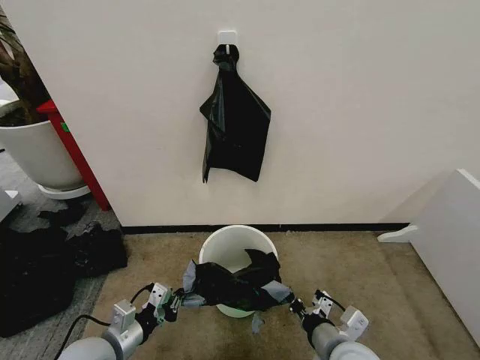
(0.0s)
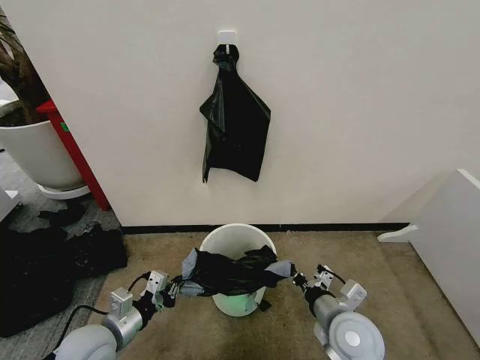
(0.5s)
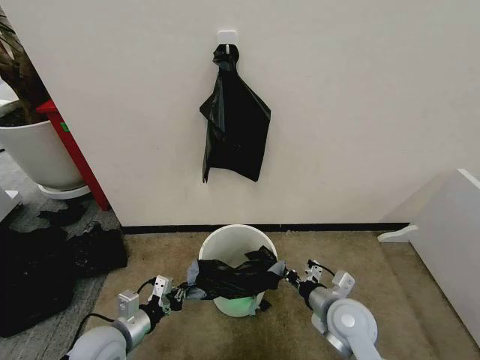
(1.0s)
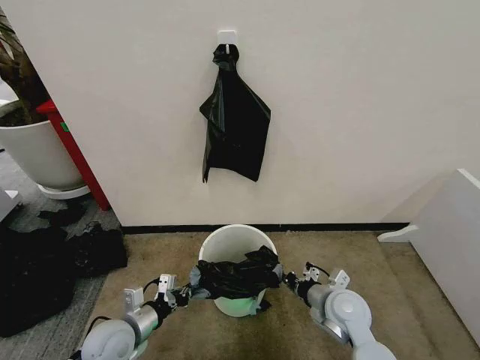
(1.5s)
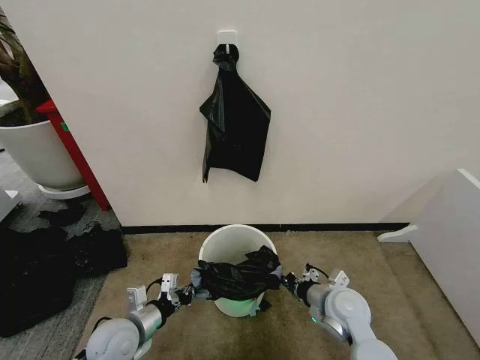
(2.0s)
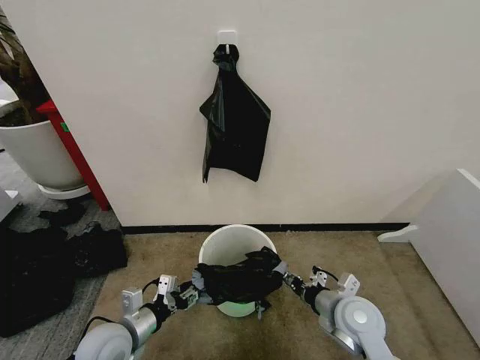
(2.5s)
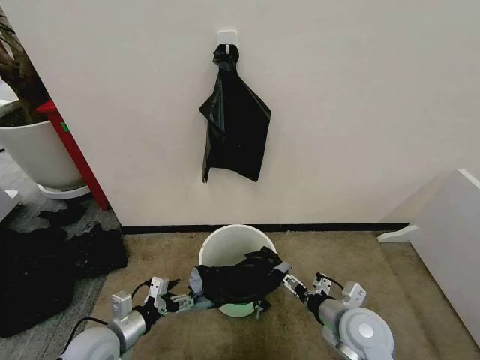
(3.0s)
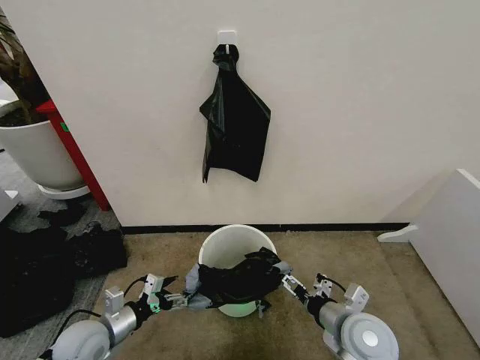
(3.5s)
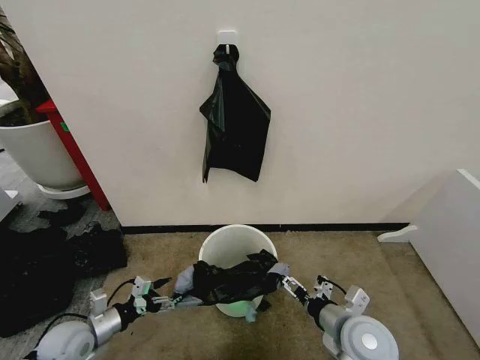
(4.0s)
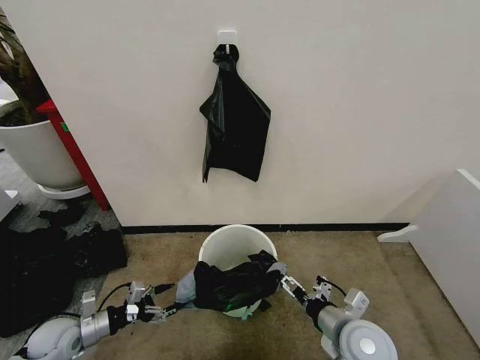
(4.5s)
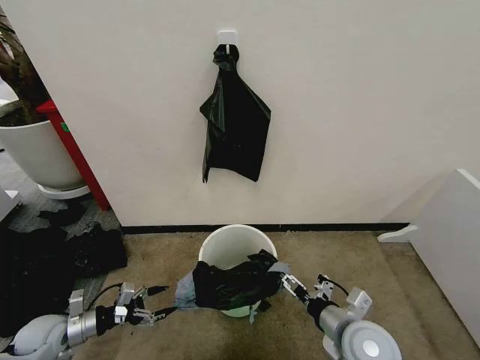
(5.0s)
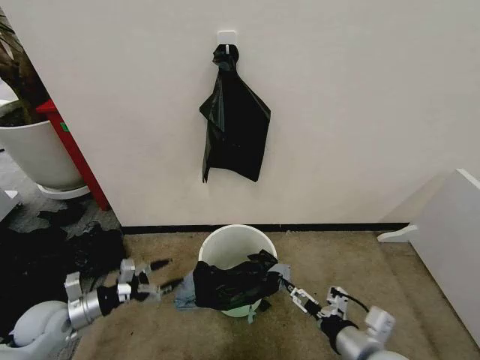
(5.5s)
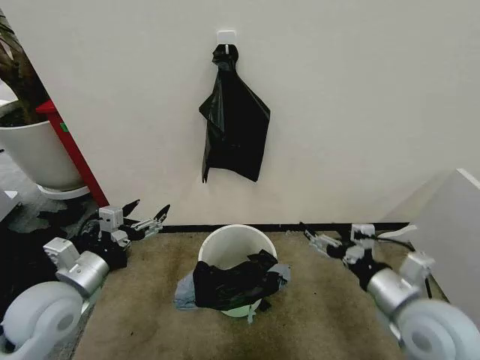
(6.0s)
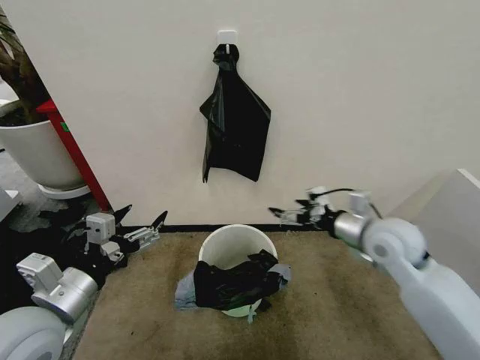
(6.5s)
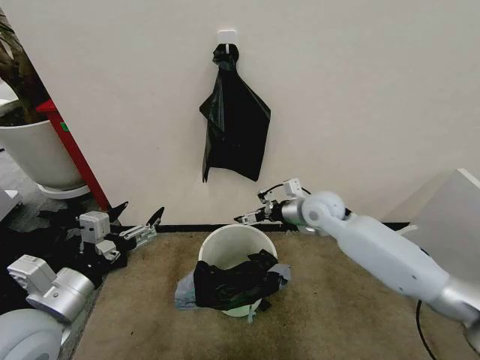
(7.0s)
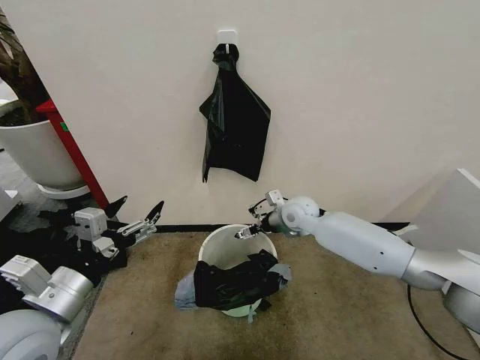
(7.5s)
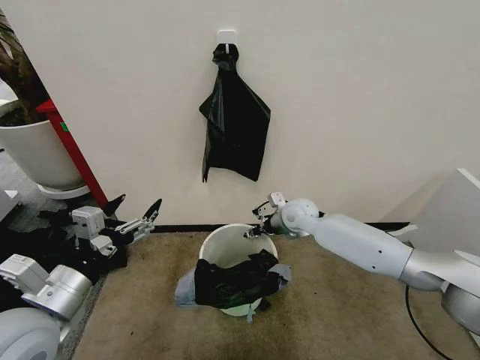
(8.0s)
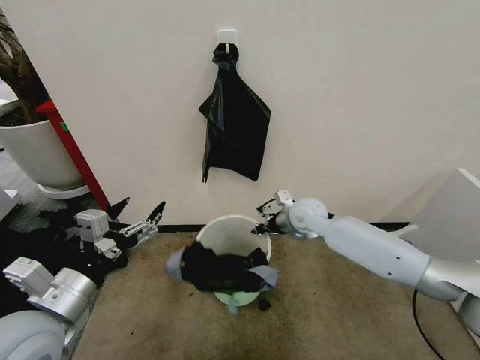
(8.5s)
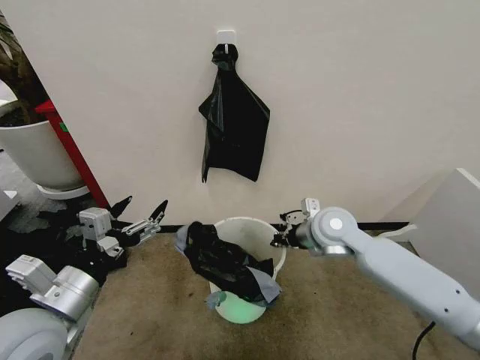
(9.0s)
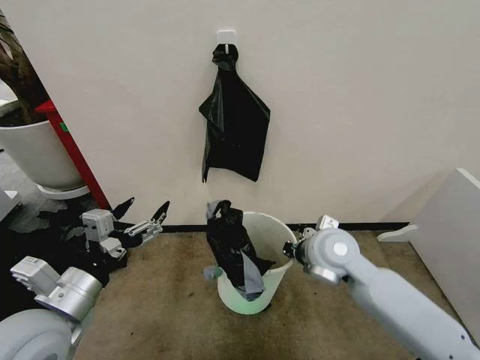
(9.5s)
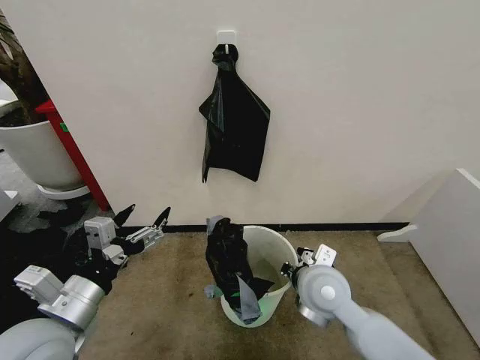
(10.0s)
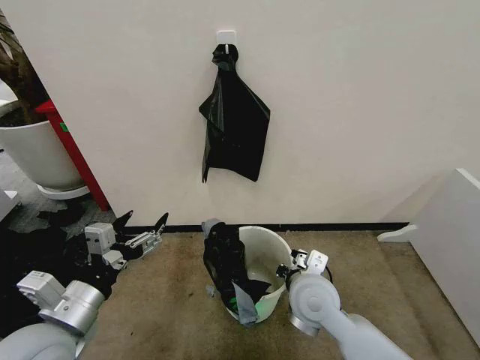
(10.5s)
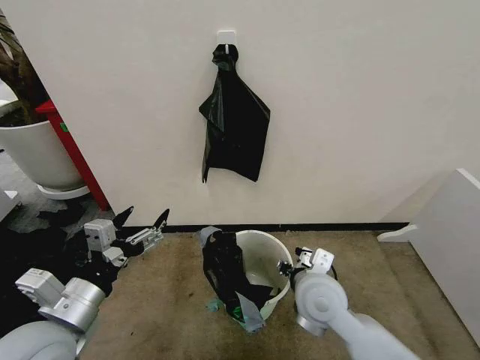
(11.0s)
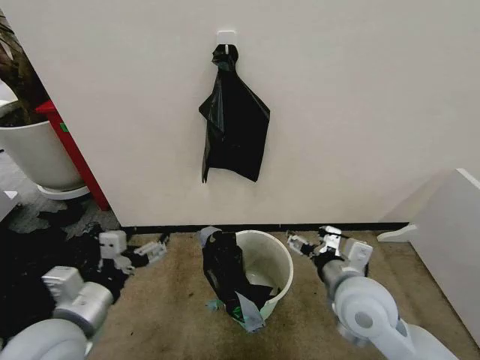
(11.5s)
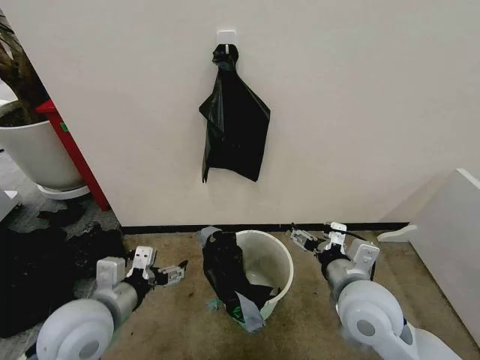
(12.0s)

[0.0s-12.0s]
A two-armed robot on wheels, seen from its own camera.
Task of the whole recording: Place the garbage bag over the trash bin.
0.0s to 2.0s: The left gripper moves approximately 5 cm; the right gripper goes about 10 cm forward.
2.0s to 4.0s: The left gripper moves to the left, roughly 10 cm, and opens its fingers. Meanwhile the right gripper heads backward, covering some 5 cm, and opens.
4.0s to 6.0s: The right gripper is displaced upward and to the right by approximately 10 cm; the left gripper shifts approximately 20 cm upward.
6.0s to 8.0s: The right gripper moves forward and to the left, approximately 30 cm, and closes up, while the left gripper moves about 5 cm.
8.0s to 10.0s: The right gripper is displaced backward by about 20 cm, and closes its fingers.
10.0s to 12.0s: The right gripper moves to the right, some 5 cm, and opens its fingers; the left gripper moves some 5 cm.

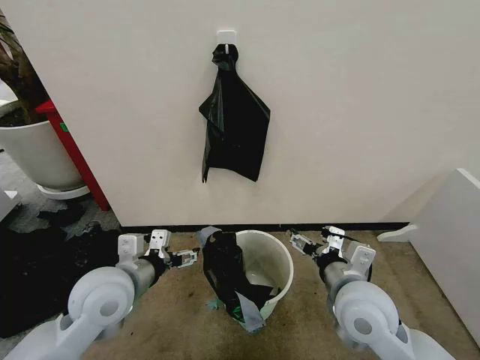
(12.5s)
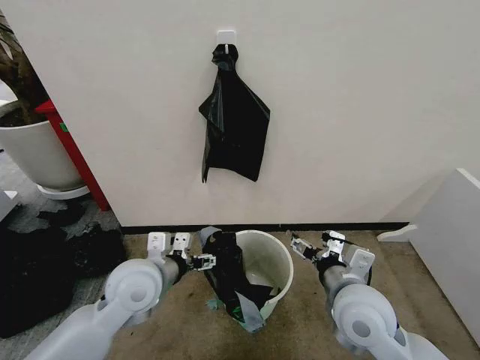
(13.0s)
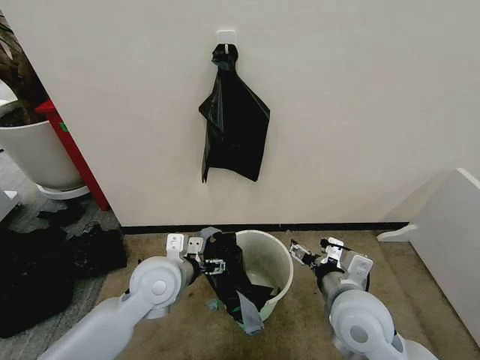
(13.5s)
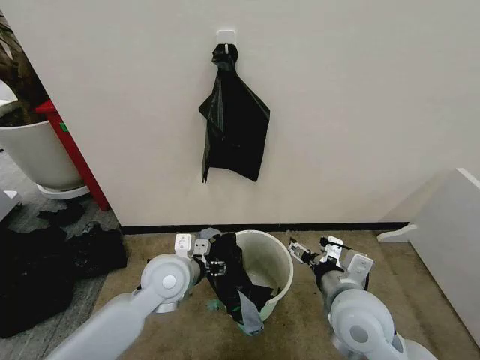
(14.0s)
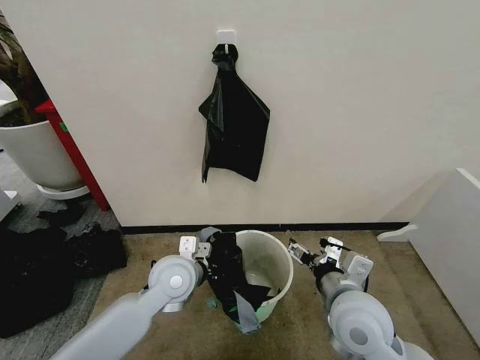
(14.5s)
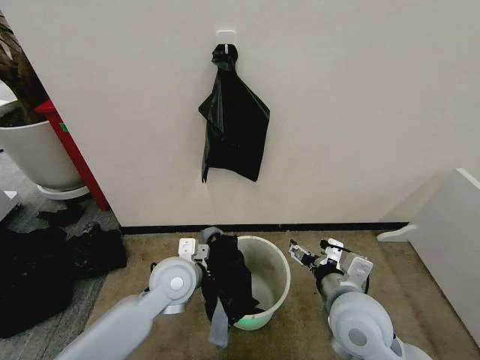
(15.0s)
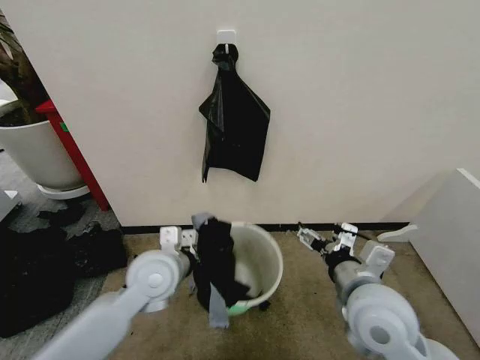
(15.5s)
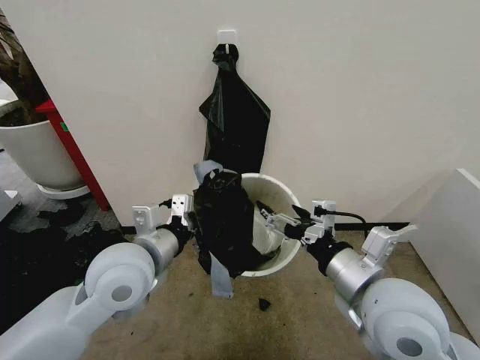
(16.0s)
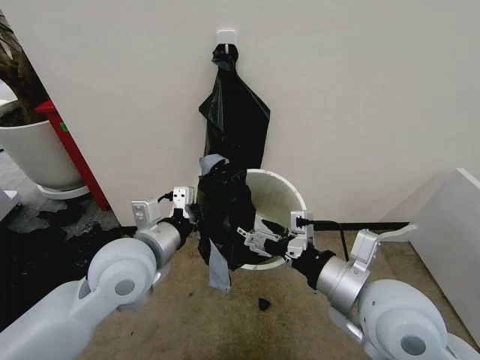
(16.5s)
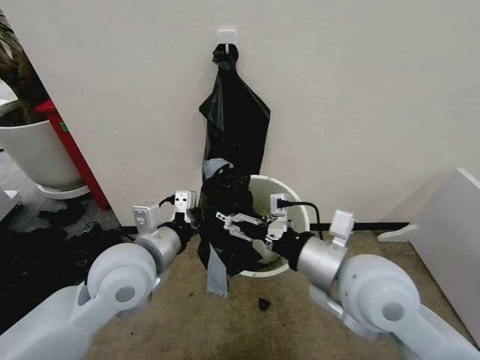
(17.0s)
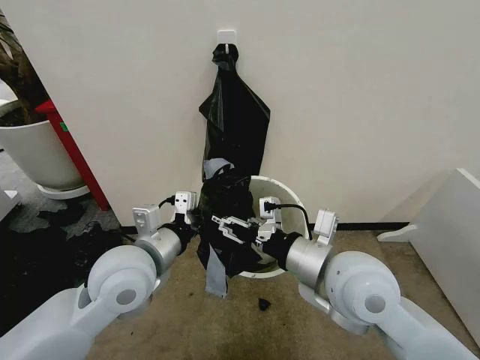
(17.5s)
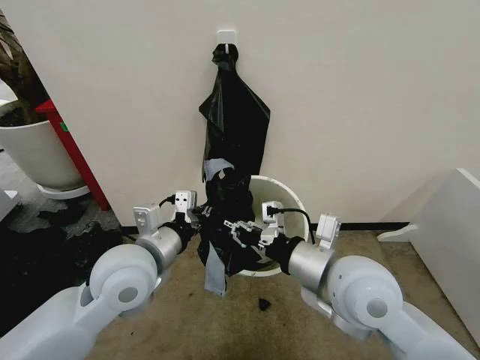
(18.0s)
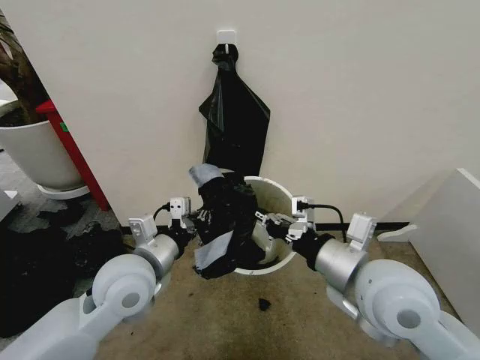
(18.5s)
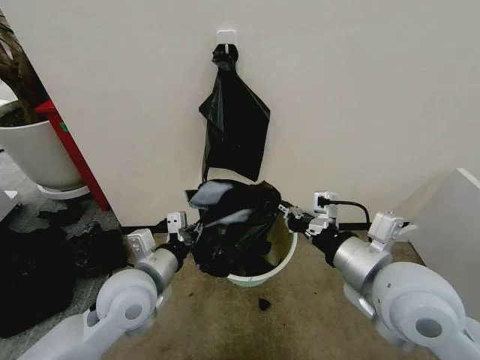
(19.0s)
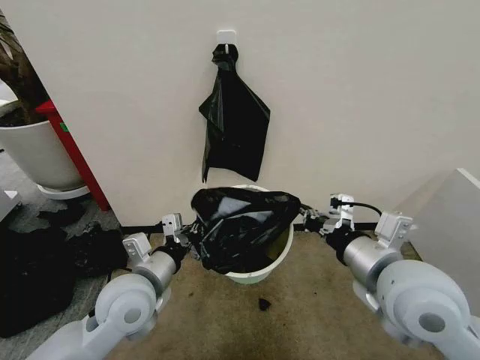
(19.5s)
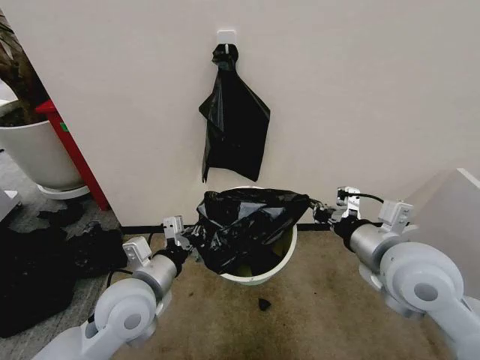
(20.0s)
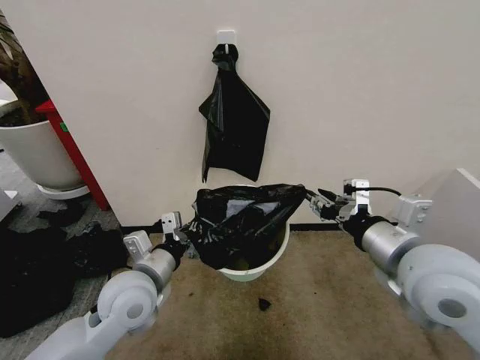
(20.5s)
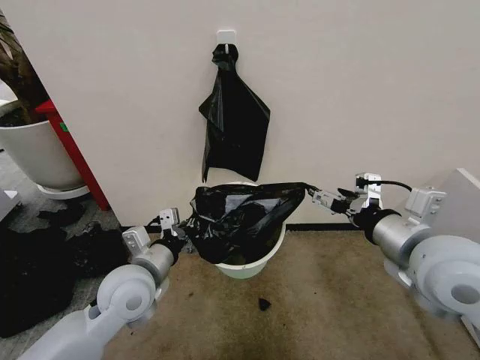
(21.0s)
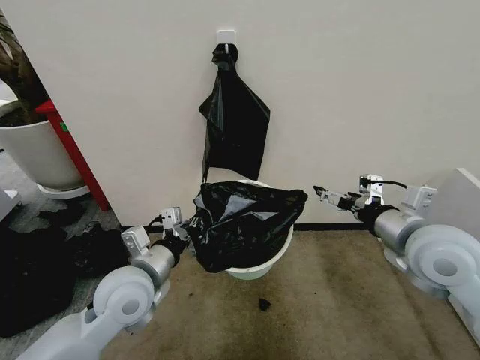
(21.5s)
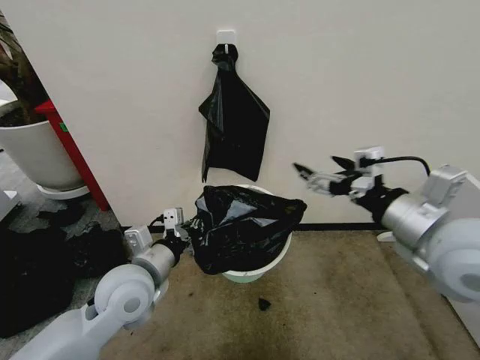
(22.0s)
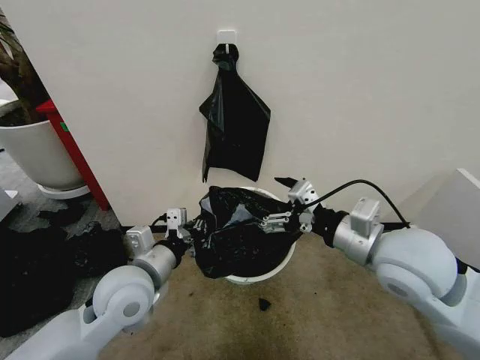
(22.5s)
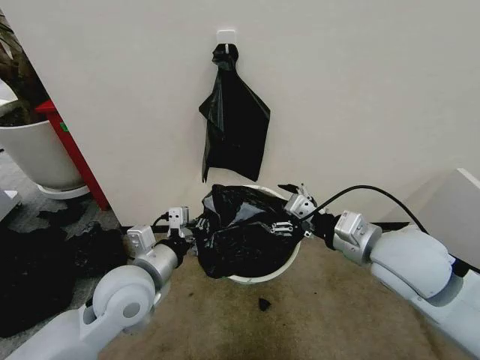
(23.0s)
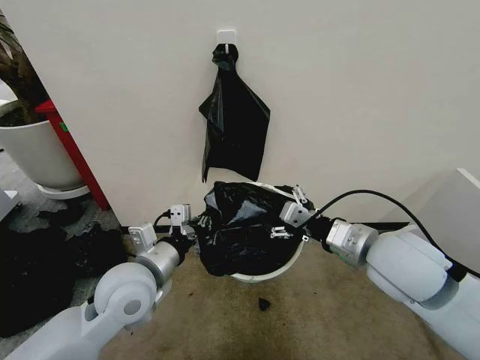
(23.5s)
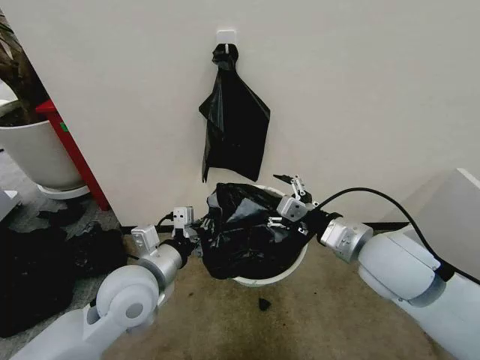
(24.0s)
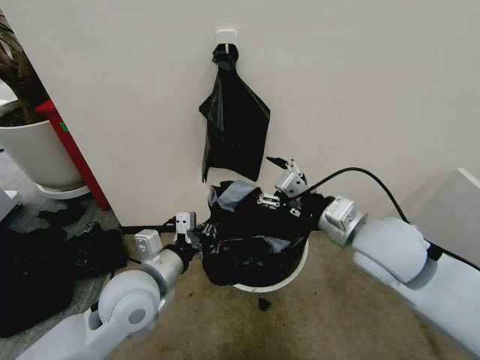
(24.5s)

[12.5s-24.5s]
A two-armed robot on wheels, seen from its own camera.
Task of the whole recording: Place the garbage bag over the trash bin.
12.5s to 14.5s: The left gripper shifts some 10 cm to the right, downward and forward, and closes up.
14.5s to 16.5s: Both grippers move upward, some 10 cm. The left gripper closes its fingers.
16.5s to 18.5s: The right gripper closes its fingers.
18.5s to 20.5s: The right gripper goes roughly 5 cm to the right, and opens.
20.5s to 22.5s: The right gripper opens.

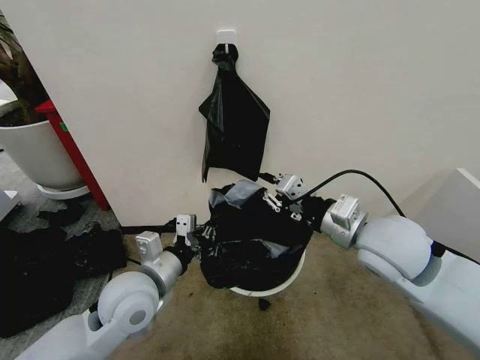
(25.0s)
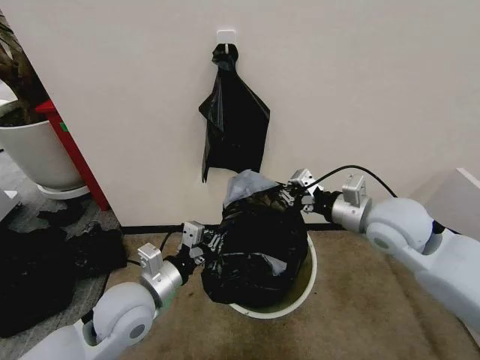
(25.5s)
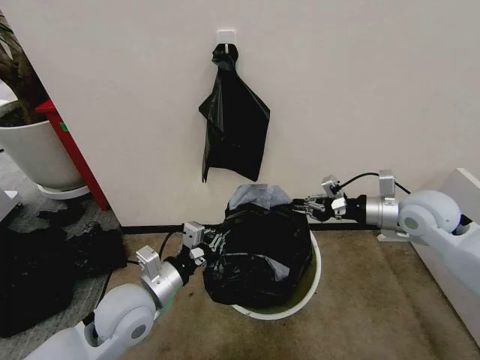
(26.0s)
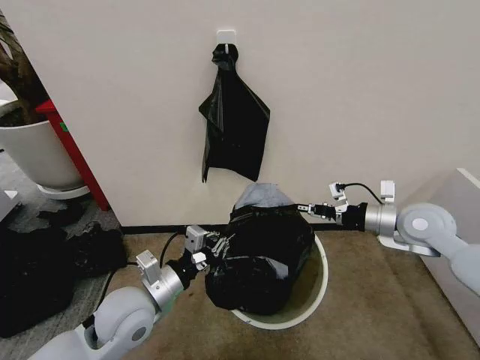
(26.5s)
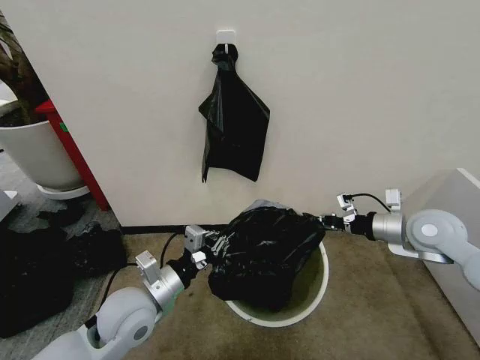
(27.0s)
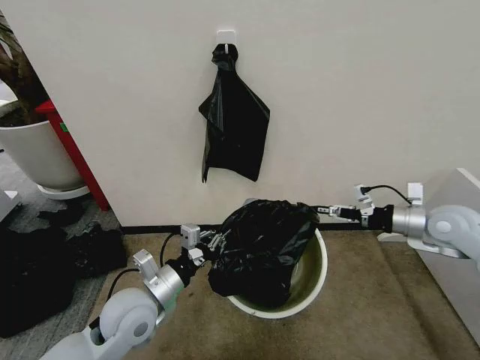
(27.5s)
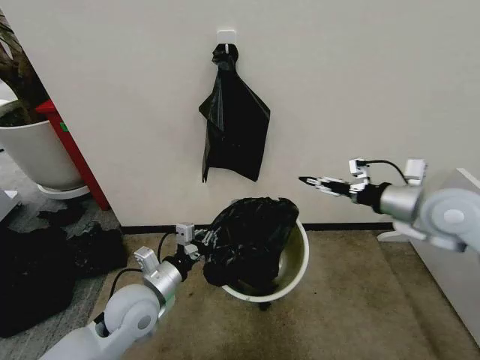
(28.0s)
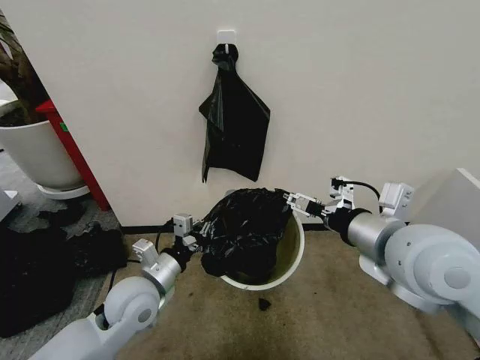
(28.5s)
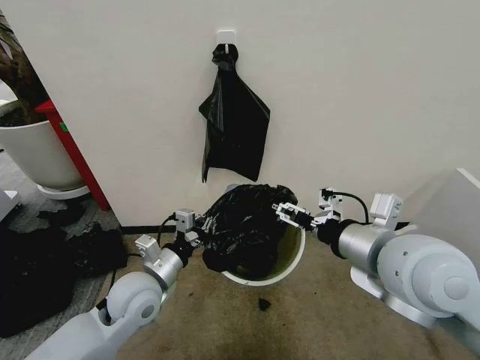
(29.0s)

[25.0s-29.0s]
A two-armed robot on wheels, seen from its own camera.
Task of the whole recording: Place the garbage bag over the trash bin.
25.0s to 27.0s: The right gripper shifts roughly 20 cm to the right, forward and downward.
27.0s to 29.0s: The right gripper goes roughly 25 cm to the left, backward and upward, and opens up.
